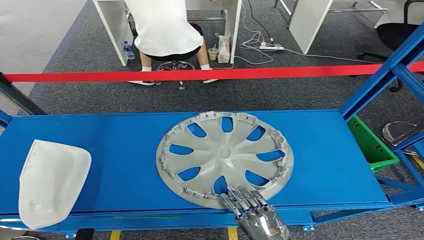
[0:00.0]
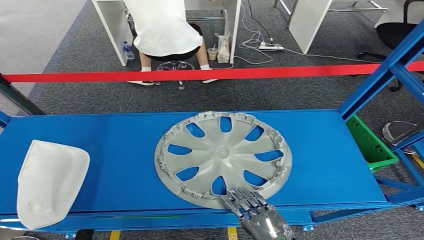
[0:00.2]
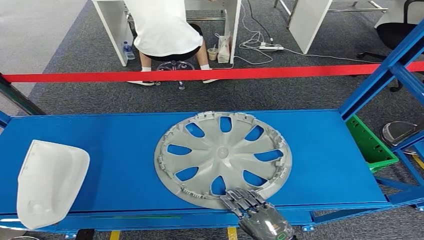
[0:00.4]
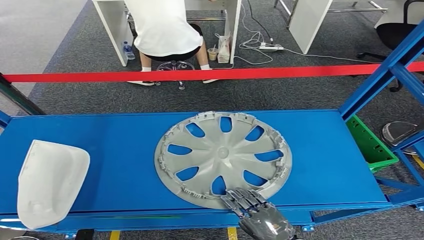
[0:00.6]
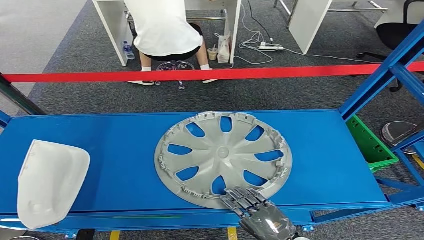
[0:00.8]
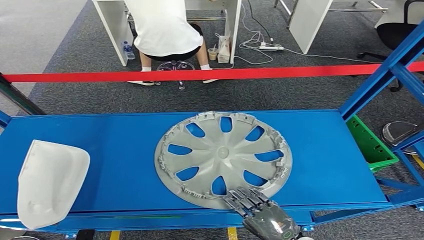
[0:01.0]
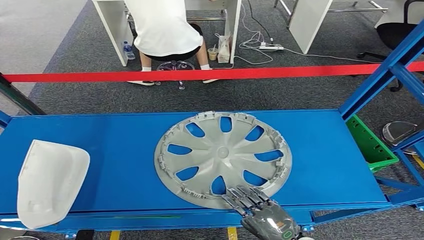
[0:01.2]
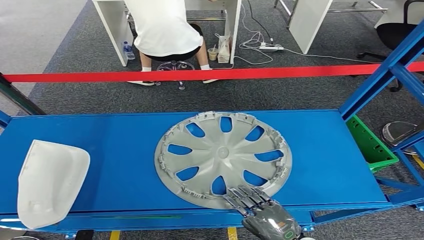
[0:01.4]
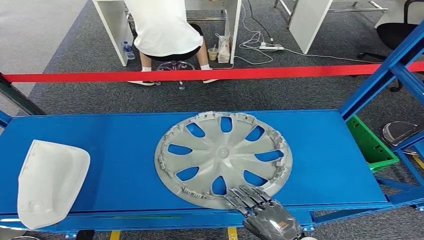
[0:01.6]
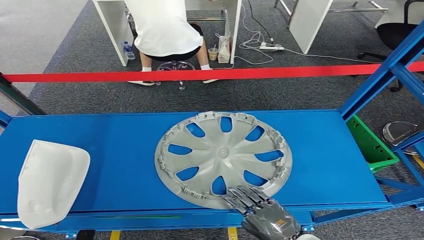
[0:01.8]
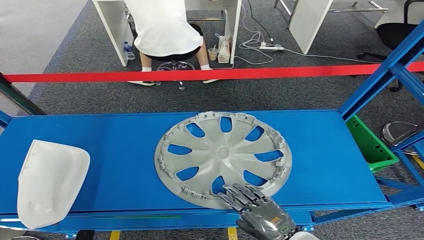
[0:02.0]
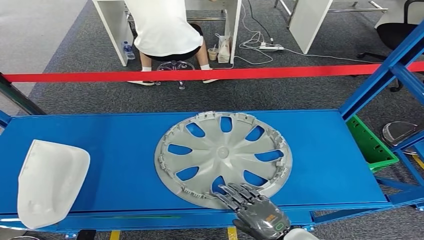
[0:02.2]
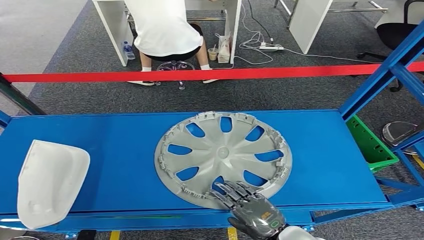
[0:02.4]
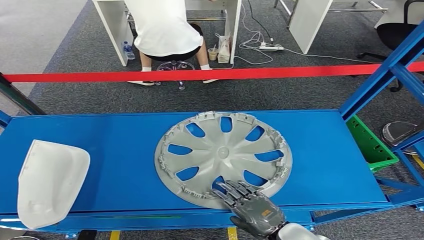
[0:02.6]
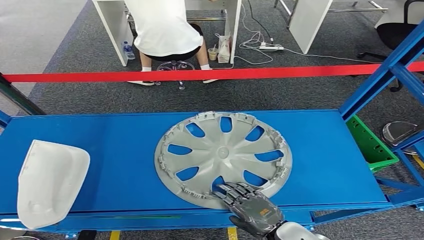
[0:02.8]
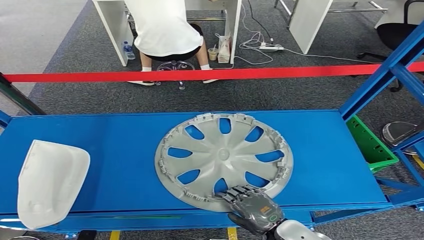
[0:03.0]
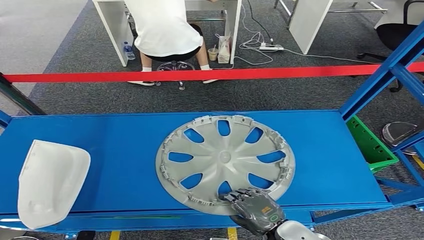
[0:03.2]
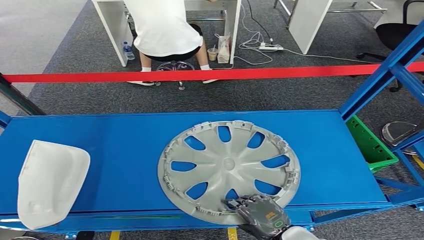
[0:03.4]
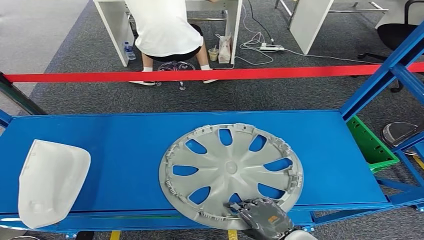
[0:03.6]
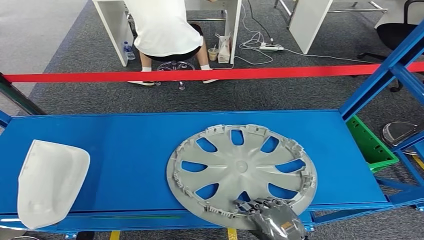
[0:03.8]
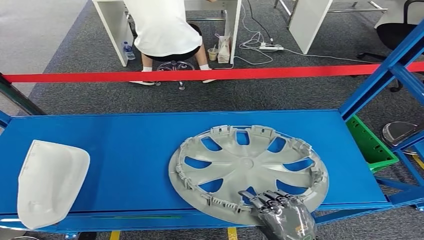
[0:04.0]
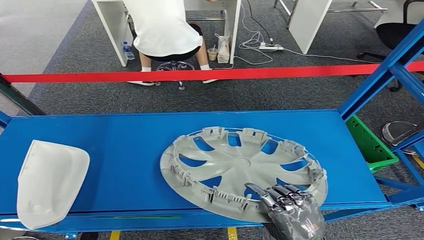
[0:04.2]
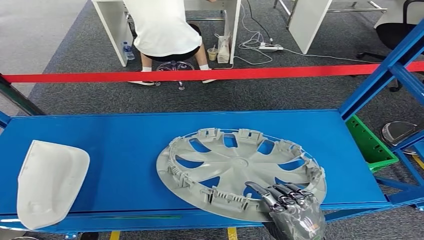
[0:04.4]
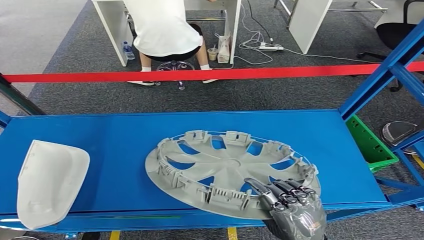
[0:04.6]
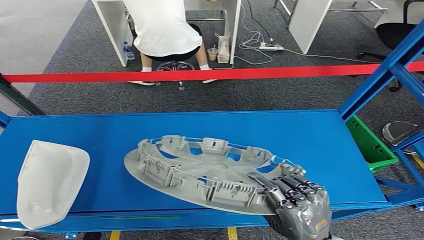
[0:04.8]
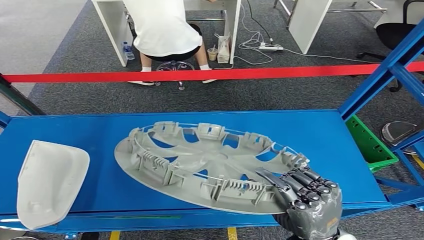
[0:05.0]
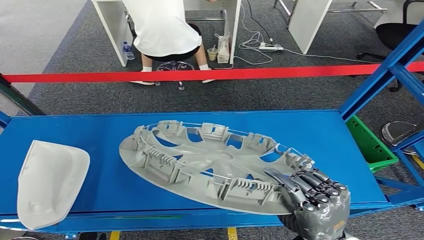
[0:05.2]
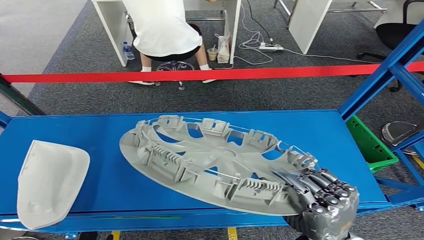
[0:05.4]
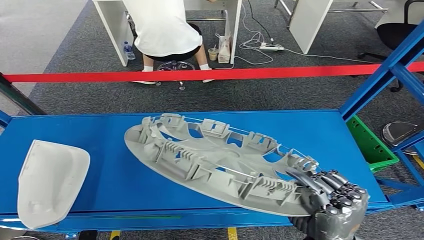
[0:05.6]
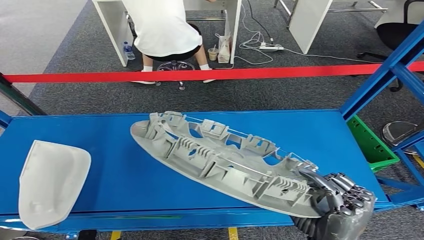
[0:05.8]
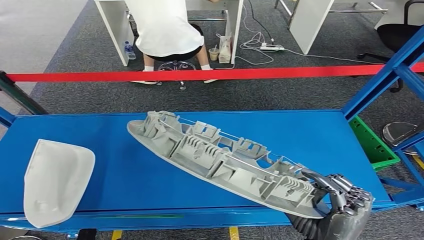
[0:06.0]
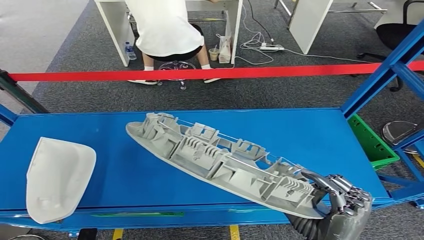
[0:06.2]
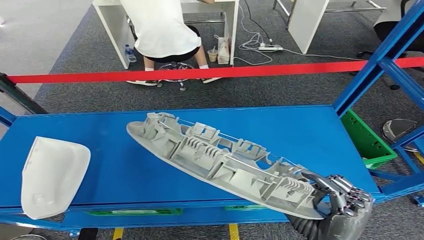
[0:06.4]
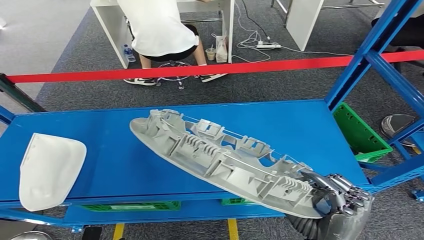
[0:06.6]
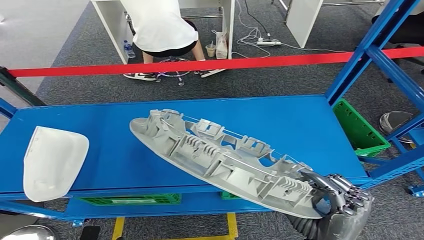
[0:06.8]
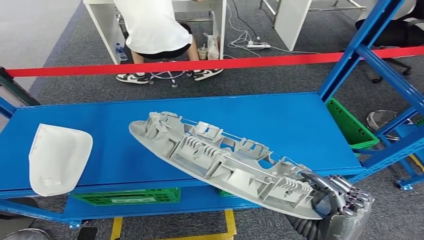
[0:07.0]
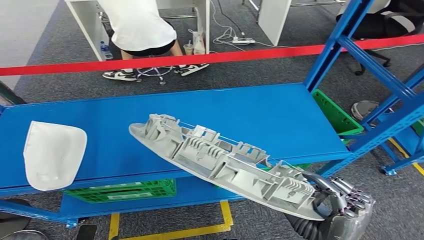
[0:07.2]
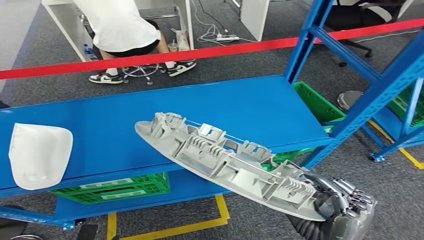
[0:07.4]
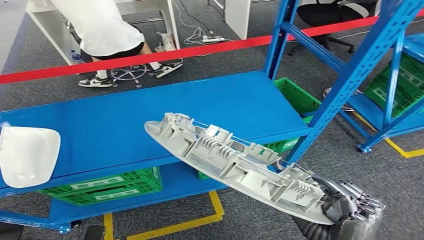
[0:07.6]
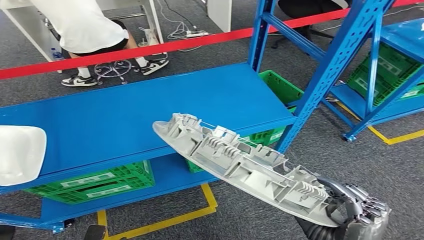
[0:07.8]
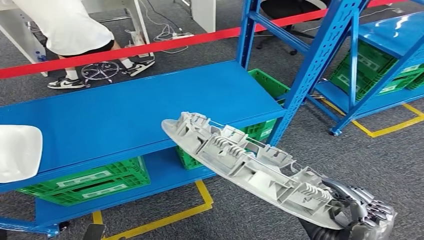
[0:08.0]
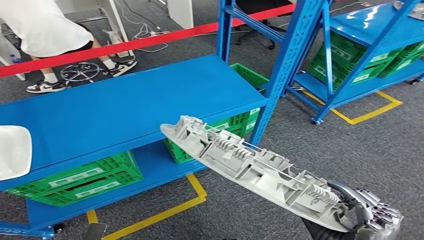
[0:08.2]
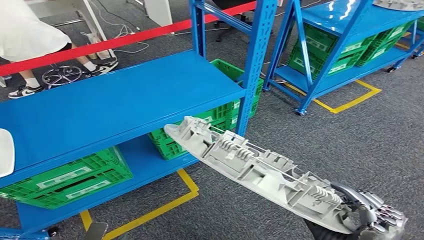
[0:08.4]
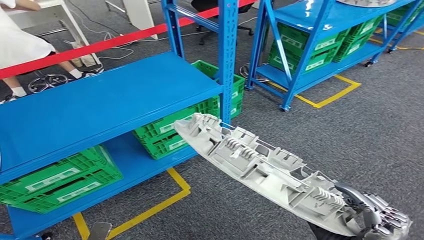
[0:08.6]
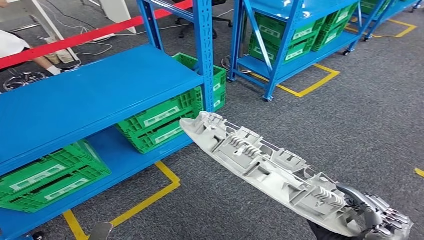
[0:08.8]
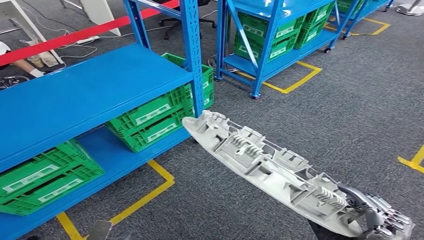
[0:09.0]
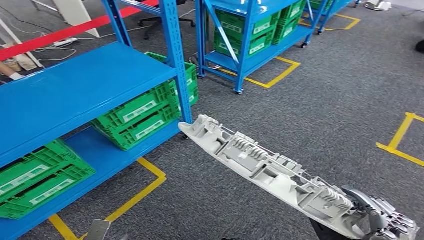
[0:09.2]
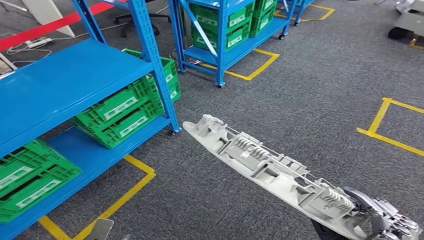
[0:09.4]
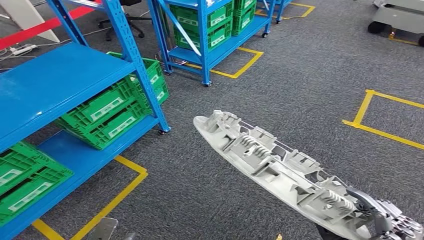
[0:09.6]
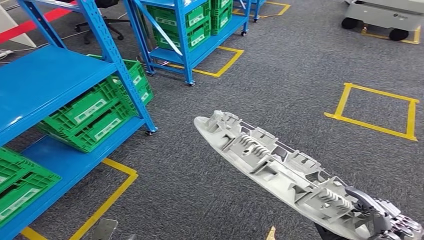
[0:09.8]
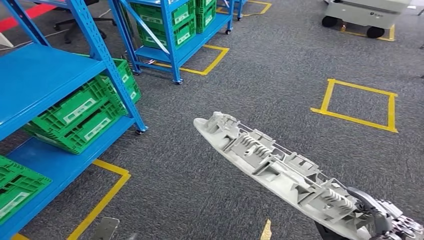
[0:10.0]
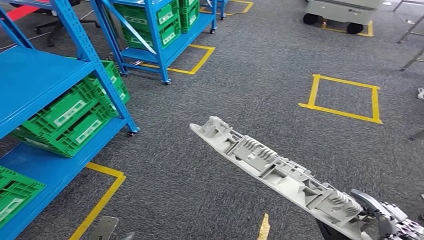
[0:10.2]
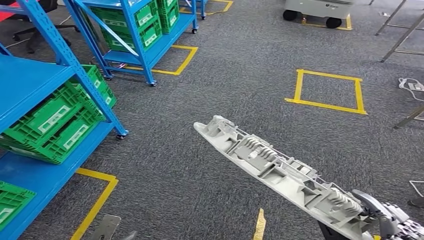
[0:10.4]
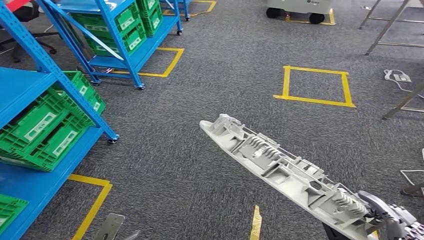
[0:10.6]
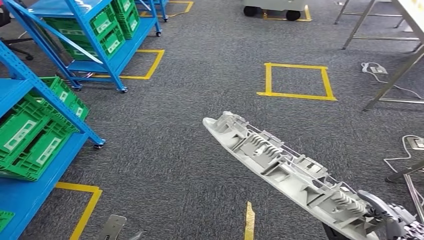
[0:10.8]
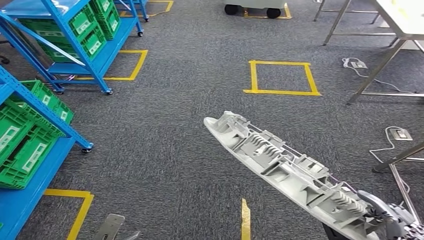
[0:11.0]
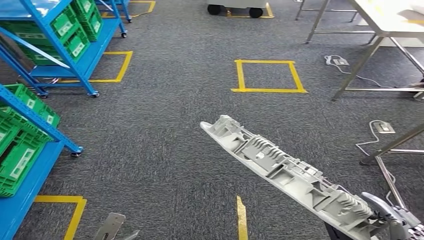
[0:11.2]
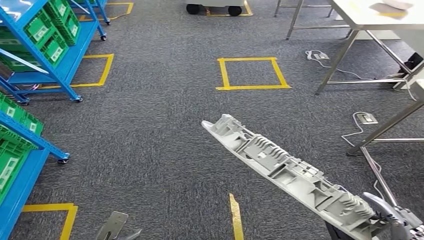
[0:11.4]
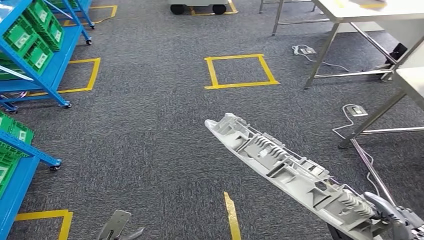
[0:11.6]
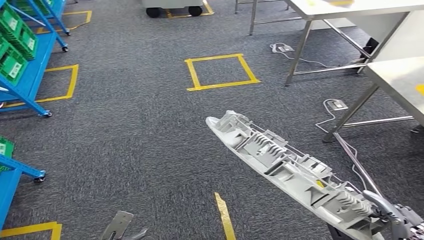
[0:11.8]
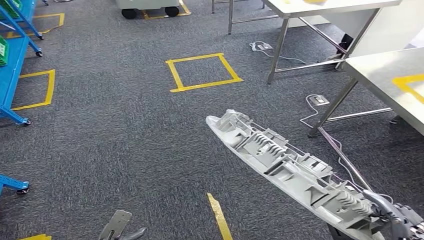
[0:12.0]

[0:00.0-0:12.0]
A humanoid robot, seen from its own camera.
Step, 0:00.0 to 0:07.8: Take small components from the rack.
0:01.6 to 0:03.0: The hands move only a little.
0:03.0 to 0:04.4: The right hand travels upward by approximately 5 cm.

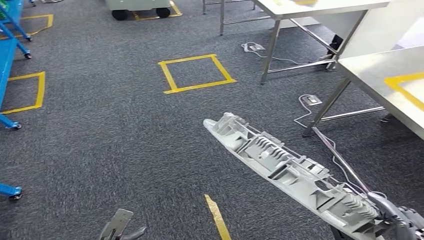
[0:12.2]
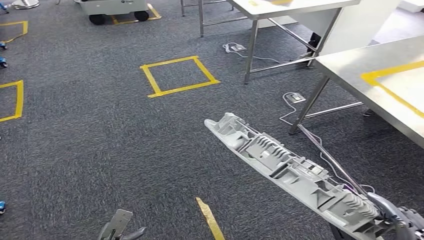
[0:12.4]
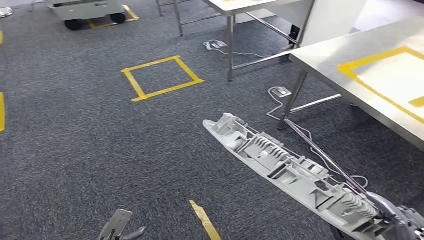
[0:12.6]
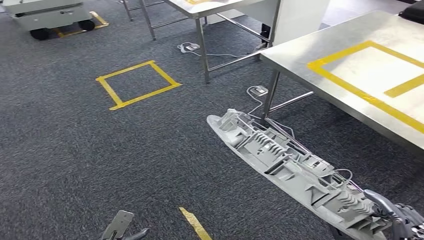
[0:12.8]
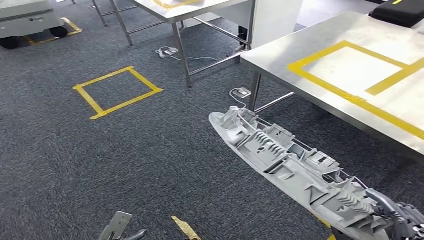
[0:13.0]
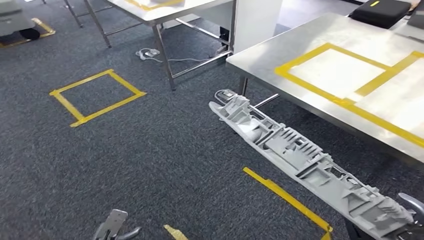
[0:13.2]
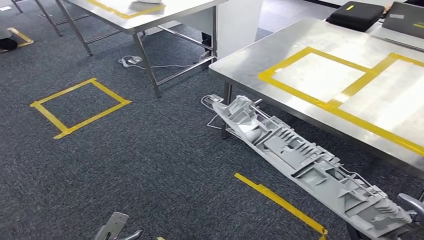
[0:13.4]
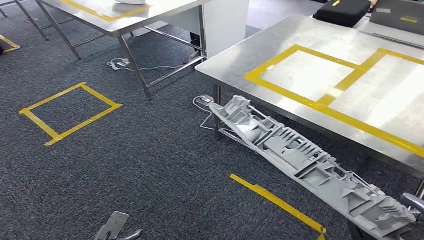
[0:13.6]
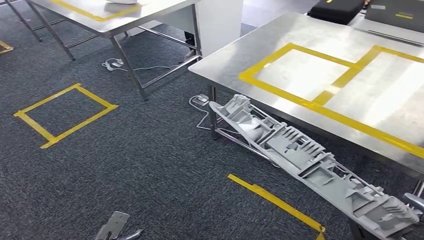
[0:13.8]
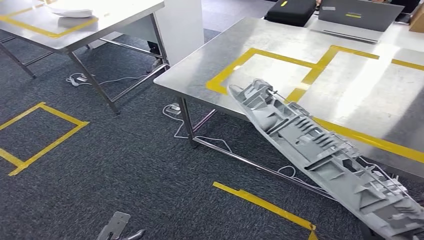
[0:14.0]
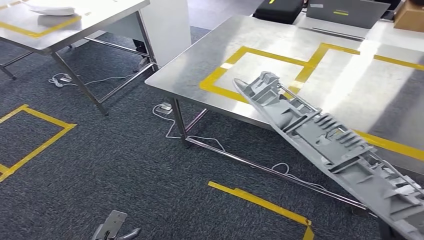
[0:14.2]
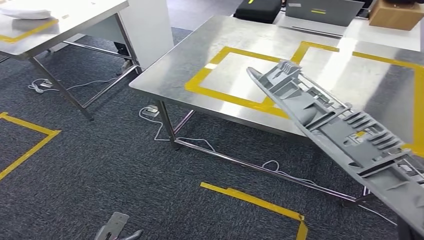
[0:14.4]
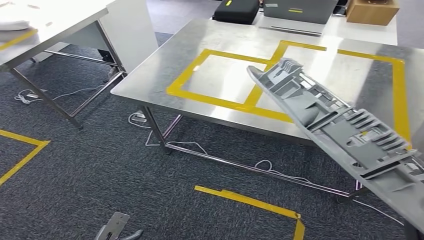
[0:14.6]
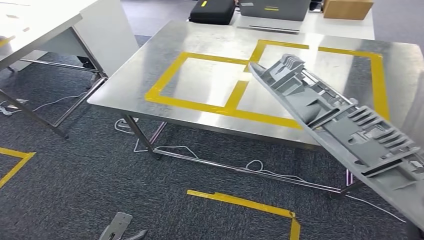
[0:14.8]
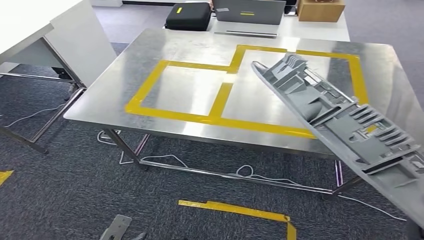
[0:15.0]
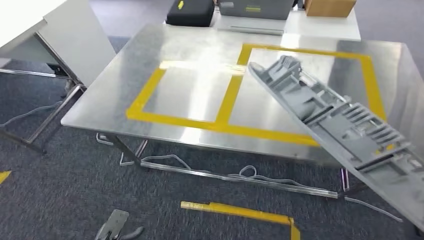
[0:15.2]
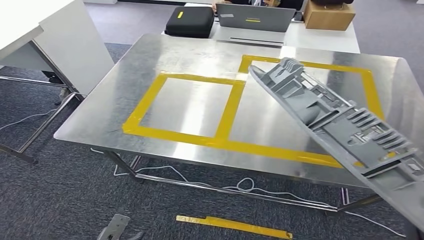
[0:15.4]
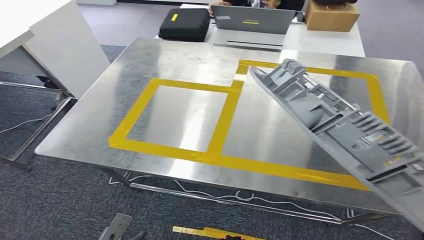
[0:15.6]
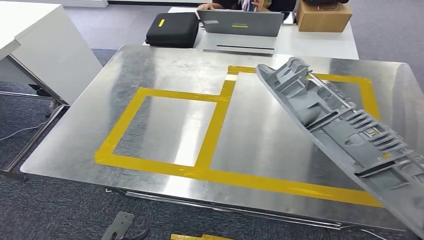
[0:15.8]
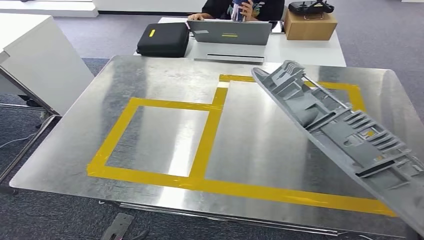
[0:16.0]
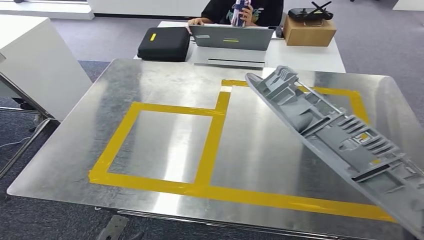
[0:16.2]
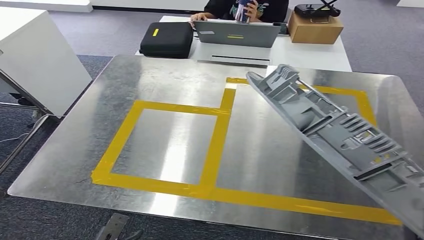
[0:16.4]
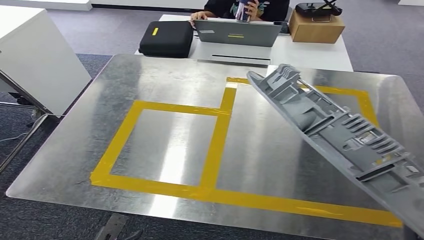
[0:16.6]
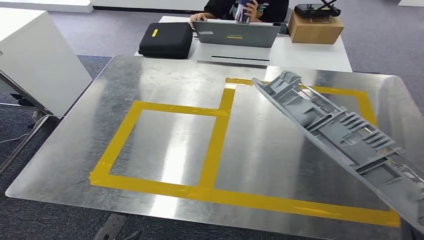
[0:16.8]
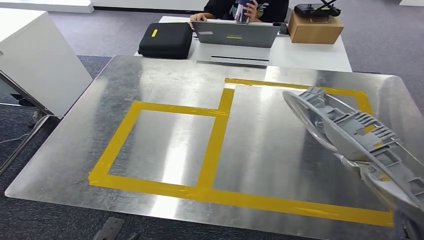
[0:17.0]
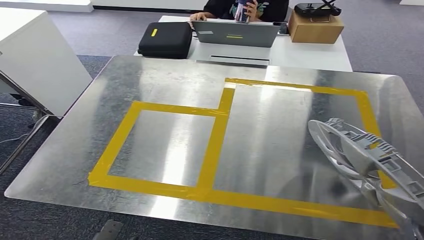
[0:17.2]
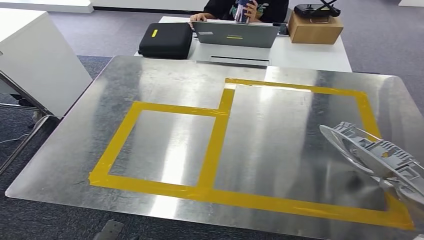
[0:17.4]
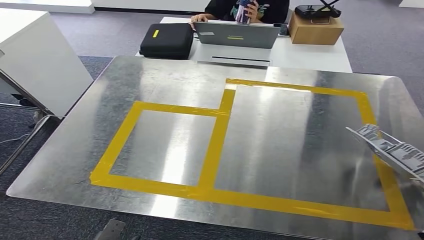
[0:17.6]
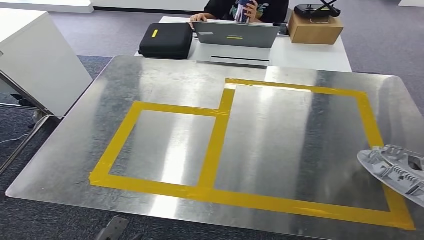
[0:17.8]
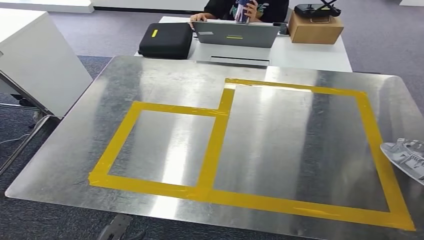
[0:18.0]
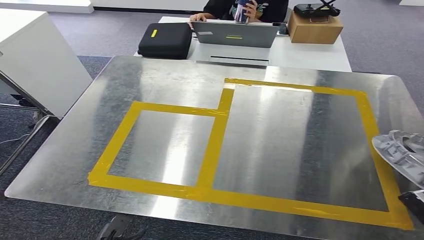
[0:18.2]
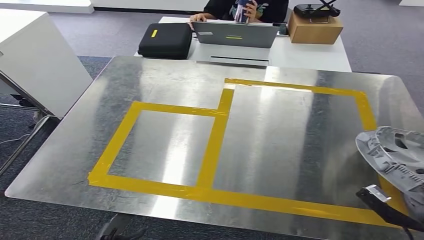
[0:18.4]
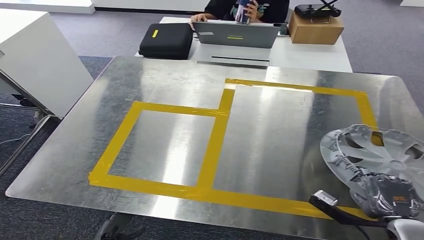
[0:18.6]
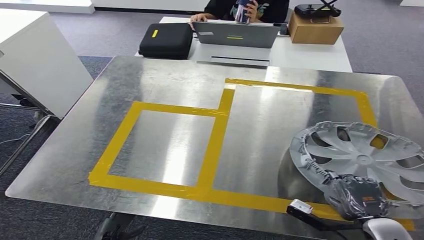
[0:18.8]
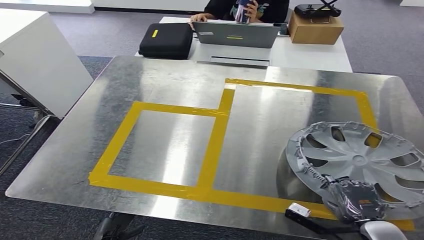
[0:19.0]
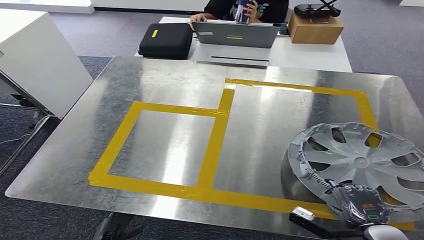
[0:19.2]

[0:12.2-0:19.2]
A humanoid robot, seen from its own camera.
Step, 0:12.2 to 0:15.6: Move the small parts to the workbench.
0:16.4 to 0:17.8: The right hand travels to the right by some 20 cm.
0:17.8 to 0:19.2: The right hand heads forward, to the left and downward, covering roughly 20 cm.
